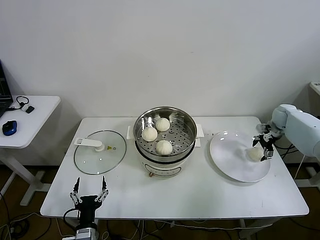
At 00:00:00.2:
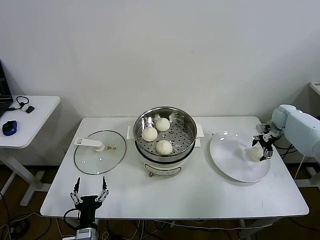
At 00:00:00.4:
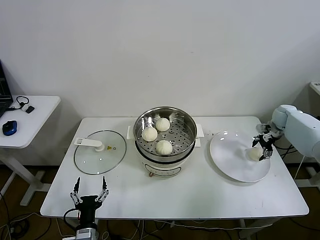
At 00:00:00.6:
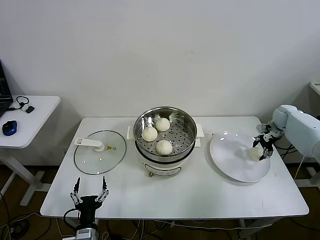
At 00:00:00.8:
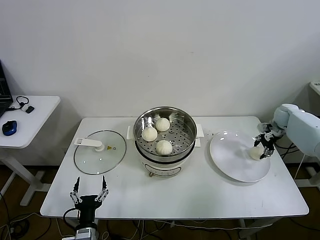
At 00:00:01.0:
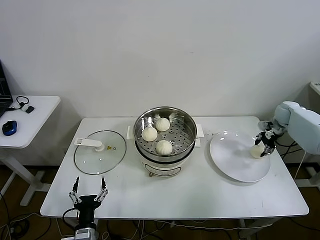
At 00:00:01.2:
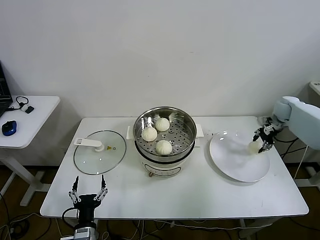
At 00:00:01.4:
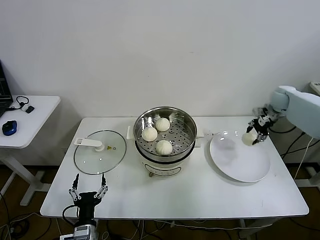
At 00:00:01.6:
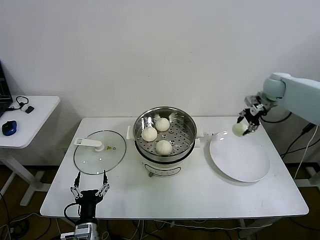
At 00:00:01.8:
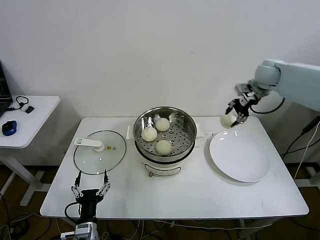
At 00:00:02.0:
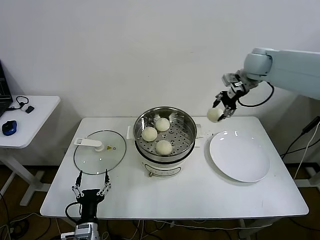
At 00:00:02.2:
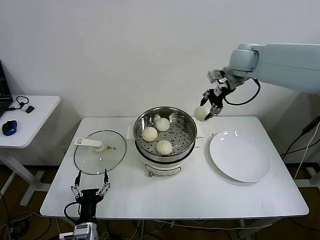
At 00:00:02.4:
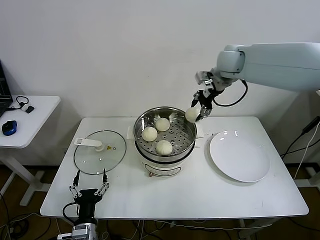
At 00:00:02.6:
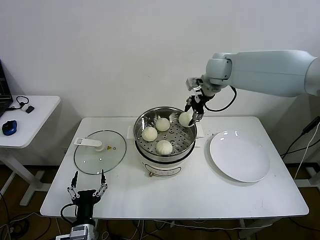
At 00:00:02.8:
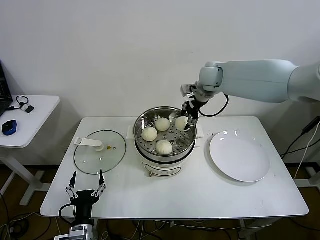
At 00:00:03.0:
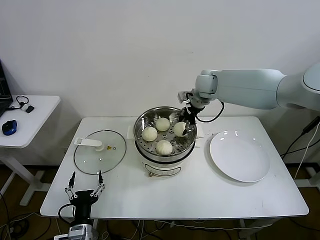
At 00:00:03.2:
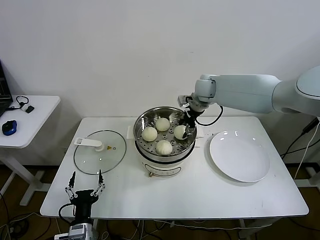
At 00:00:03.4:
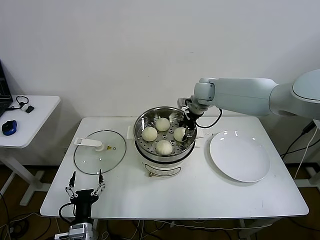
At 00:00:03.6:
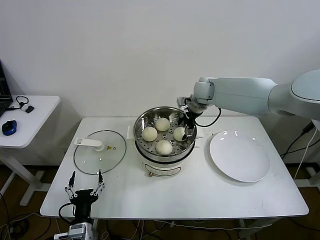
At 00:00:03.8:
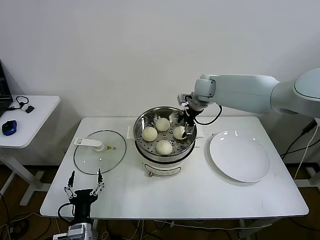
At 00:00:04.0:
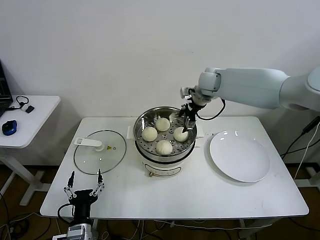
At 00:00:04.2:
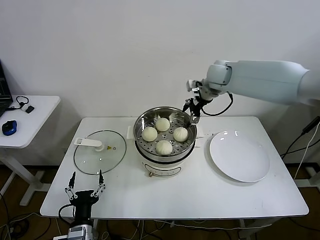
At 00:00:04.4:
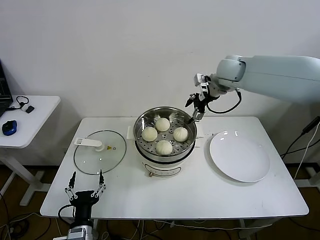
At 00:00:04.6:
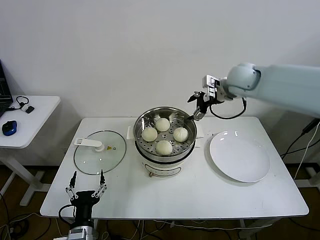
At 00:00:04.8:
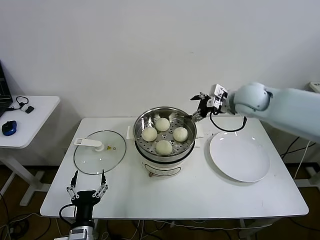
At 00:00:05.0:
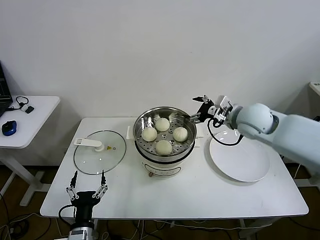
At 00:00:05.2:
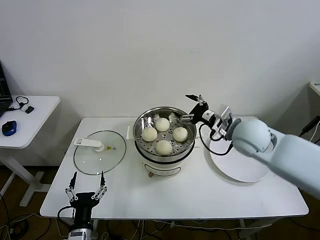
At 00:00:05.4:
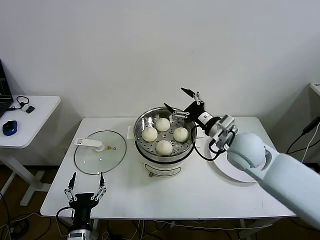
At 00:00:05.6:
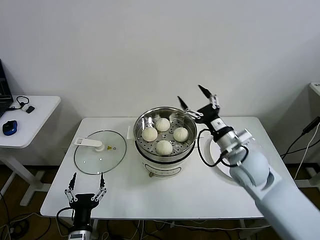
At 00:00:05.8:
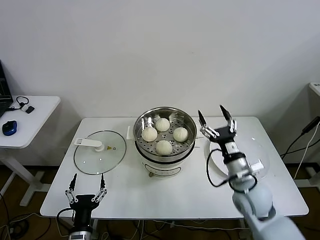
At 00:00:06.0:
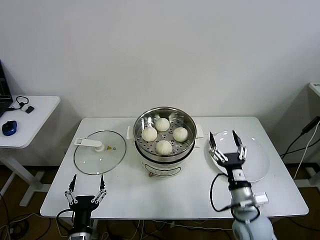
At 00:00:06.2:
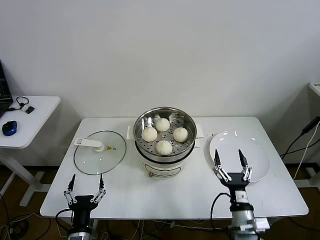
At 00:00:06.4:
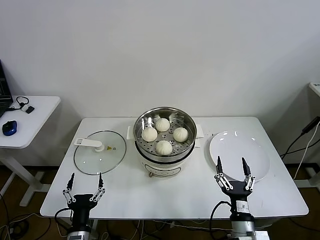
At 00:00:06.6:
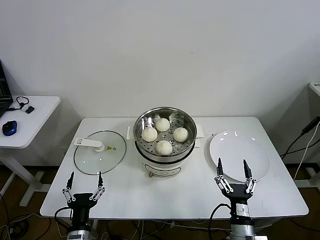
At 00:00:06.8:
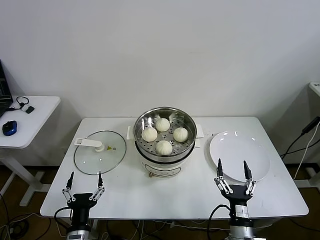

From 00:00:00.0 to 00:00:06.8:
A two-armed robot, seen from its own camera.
Step, from 00:00:00.8 to 00:00:04.0: Place the baozi on the steamer with right gripper.
From 00:00:00.0 to 00:00:01.4: The right gripper is displaced upward by approximately 5 cm, and closes up.
From 00:00:01.4 to 00:00:02.8: The right gripper goes approximately 30 cm to the left and upward.
From 00:00:02.8 to 00:00:04.0: The right gripper opens.
From 00:00:04.0 to 00:00:05.4: The right gripper moves backward, approximately 25 cm.
From 00:00:05.4 to 00:00:06.8: The right gripper travels backward and downward by roughly 35 cm.
